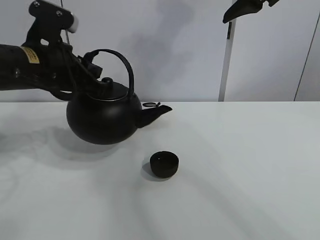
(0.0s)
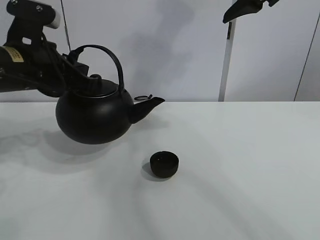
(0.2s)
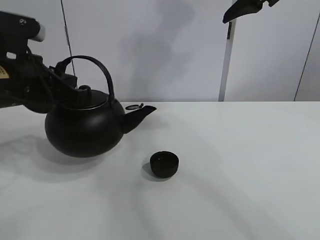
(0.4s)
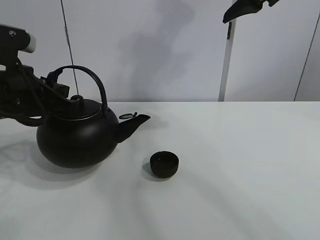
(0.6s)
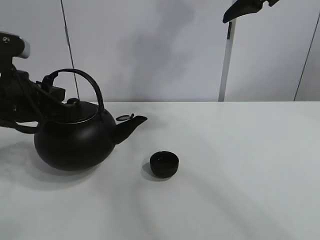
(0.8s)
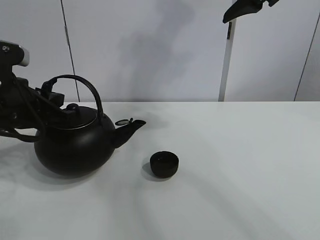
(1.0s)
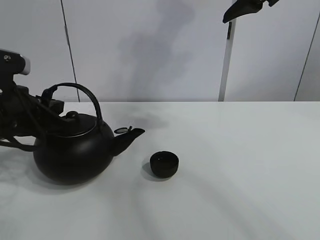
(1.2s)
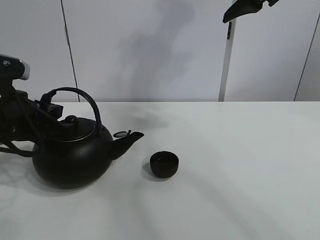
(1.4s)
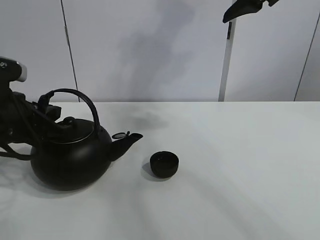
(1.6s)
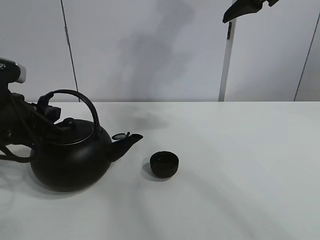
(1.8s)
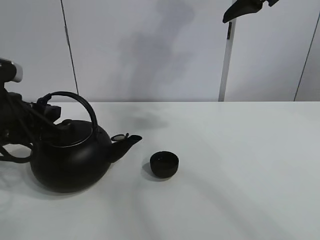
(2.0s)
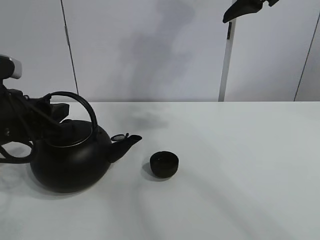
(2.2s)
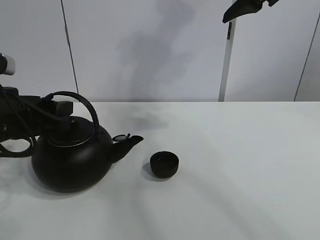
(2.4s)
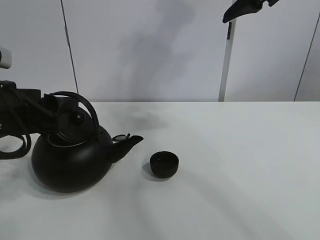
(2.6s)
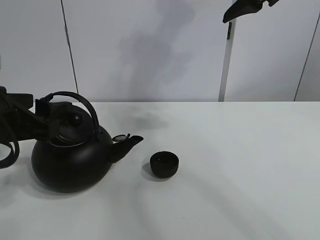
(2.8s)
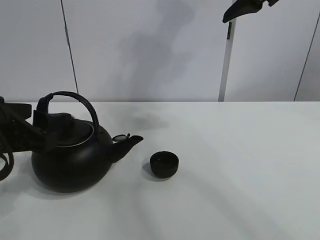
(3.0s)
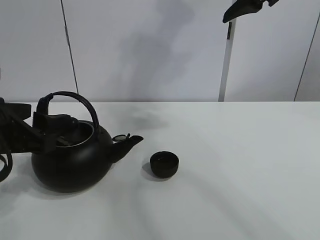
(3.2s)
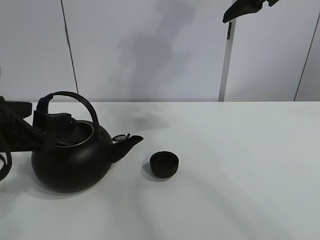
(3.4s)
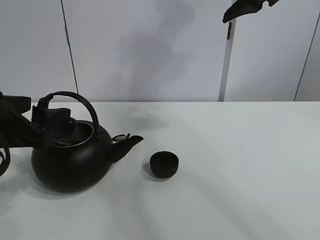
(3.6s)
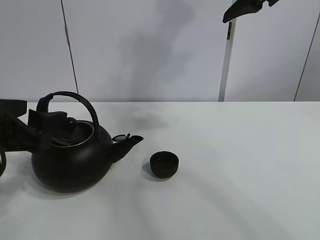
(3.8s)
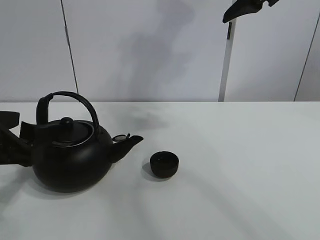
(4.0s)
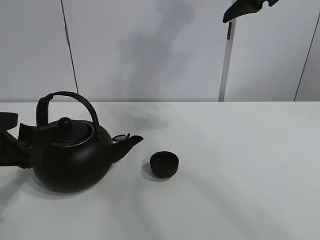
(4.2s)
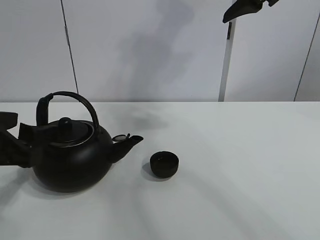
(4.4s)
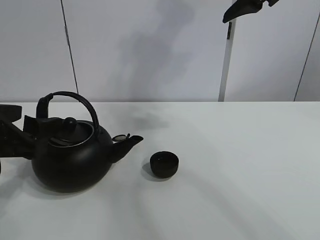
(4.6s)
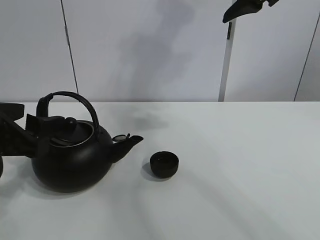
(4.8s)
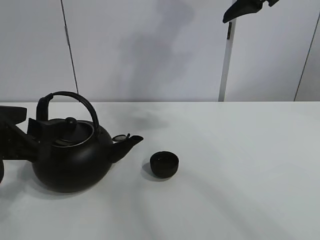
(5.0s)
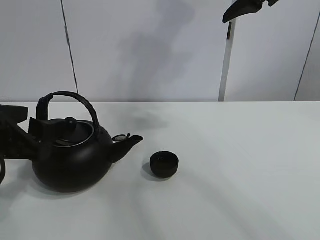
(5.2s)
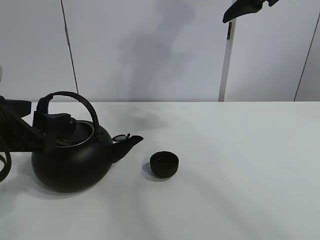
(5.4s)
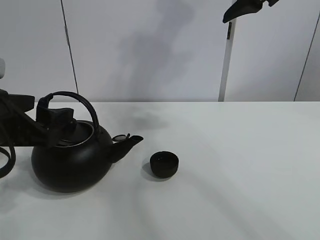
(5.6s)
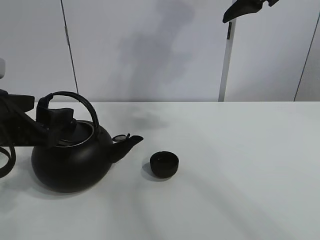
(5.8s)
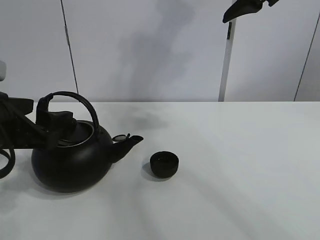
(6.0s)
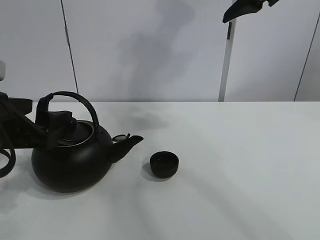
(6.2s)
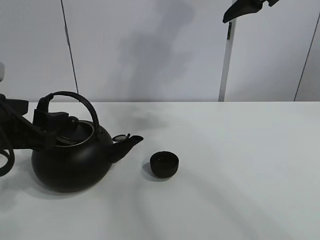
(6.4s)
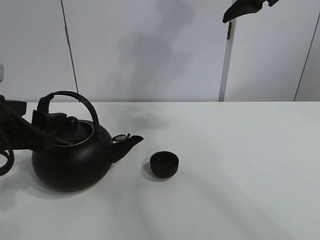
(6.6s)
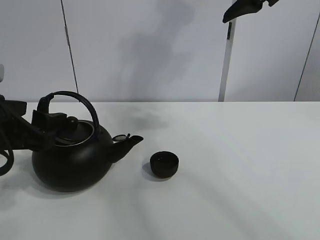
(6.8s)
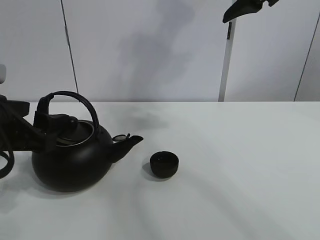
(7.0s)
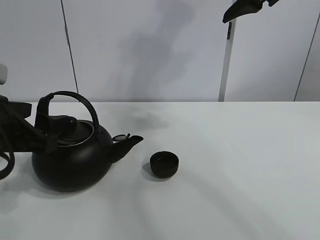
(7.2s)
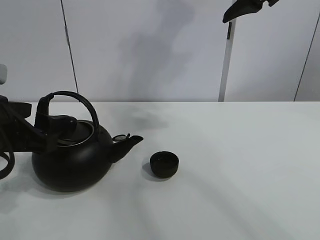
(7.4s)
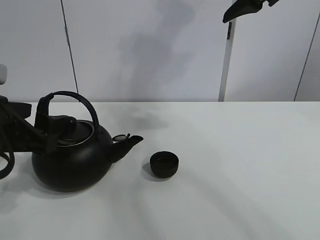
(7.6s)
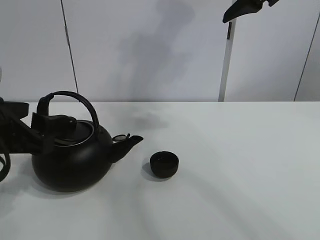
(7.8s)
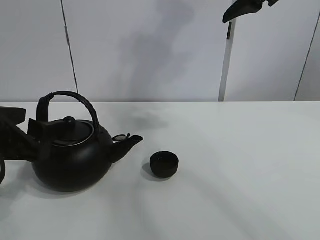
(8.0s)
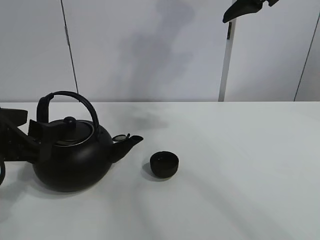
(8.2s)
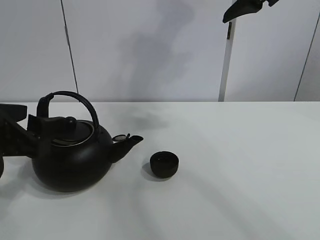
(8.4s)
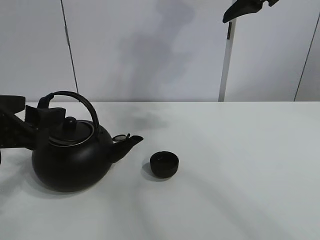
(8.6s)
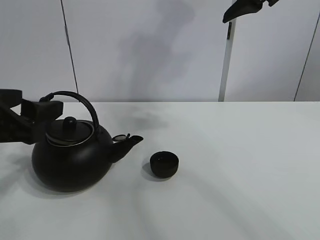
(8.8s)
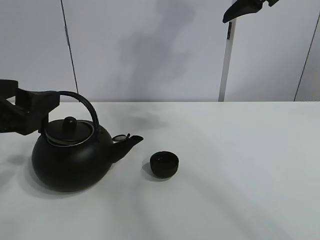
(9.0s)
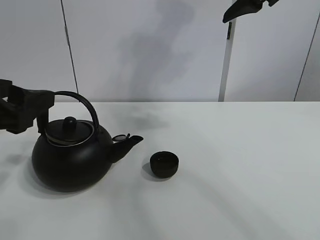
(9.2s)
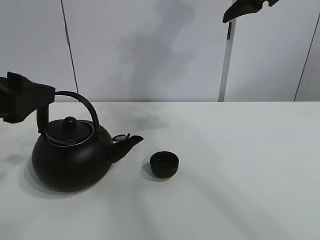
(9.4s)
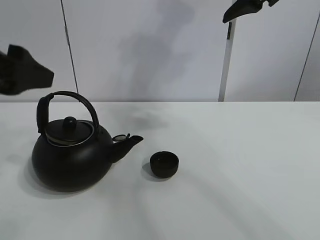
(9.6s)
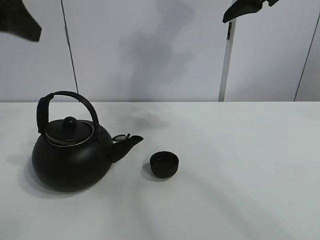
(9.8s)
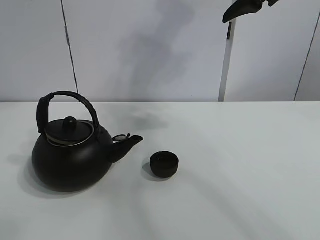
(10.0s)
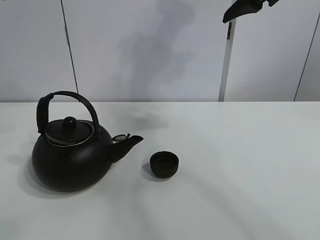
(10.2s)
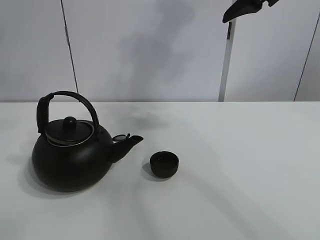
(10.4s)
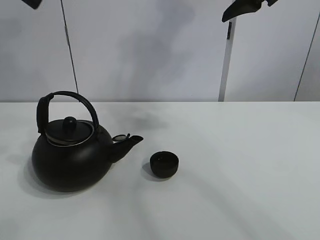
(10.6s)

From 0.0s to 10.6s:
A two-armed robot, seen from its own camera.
Task of the whole recording: pour tea into the teacup.
From 0.0s to 1.6s: The left gripper moves backward and downward, roughly 10 cm.
From 1.6s to 3.0s: The left gripper opens up.
From 3.0s to 6.0s: The grippers stay close to where they were, moving slightly.
From 6.0s to 7.6s: The two grippers keep their place.
From 7.6s to 9.0s: There are only small adjustments of the grippers.
From 9.0s to 10.6s: The left gripper is displaced upward by some 25 cm.

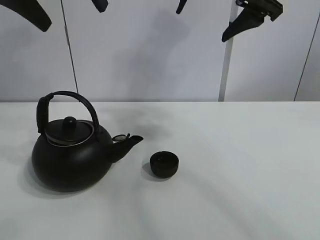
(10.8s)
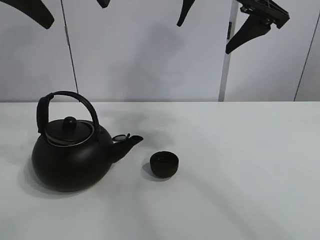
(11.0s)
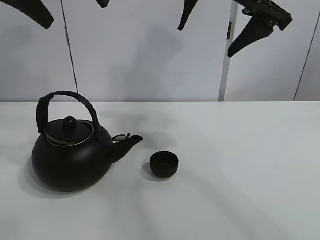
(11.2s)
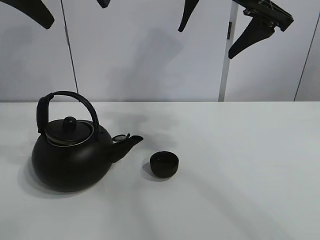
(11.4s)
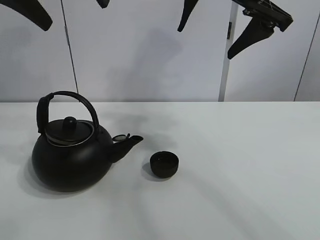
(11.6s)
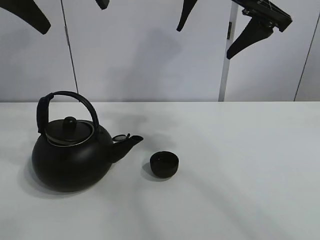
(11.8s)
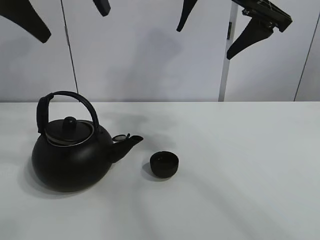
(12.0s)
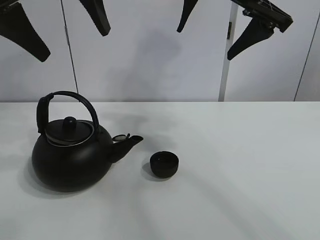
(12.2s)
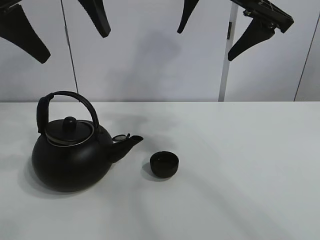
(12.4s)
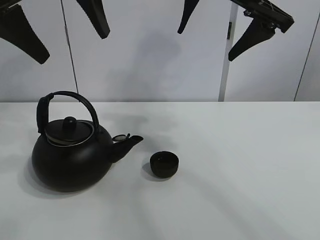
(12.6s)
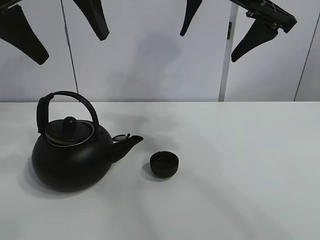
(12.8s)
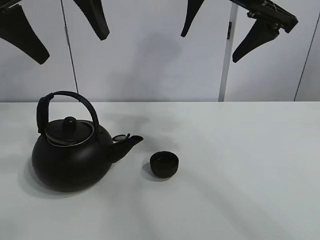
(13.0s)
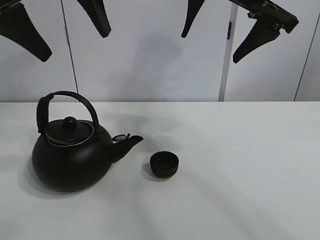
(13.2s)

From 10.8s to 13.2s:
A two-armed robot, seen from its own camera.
Task of the whole recording: pour tea into the teacup.
From 10.8s to 13.2s: There are only small adjustments of the grippers.

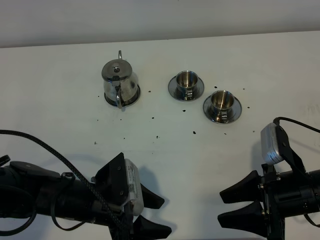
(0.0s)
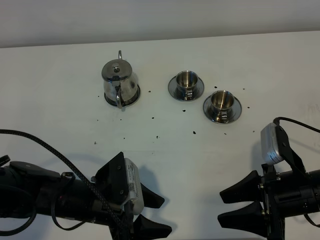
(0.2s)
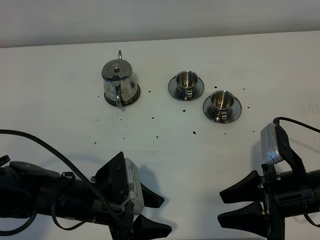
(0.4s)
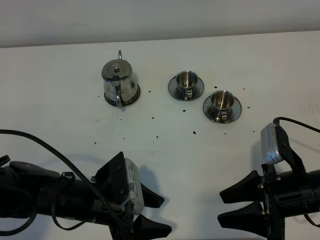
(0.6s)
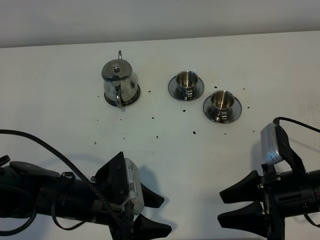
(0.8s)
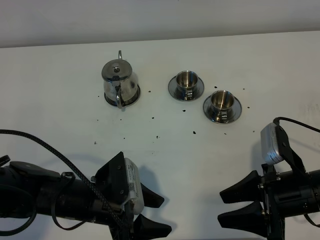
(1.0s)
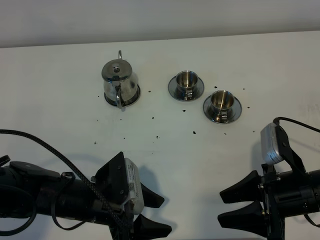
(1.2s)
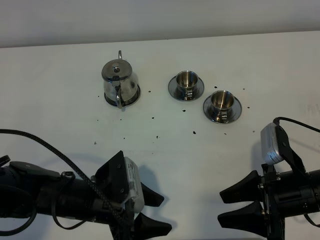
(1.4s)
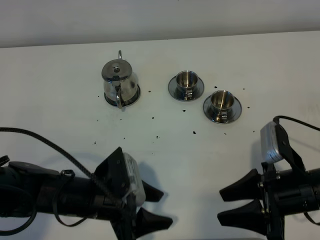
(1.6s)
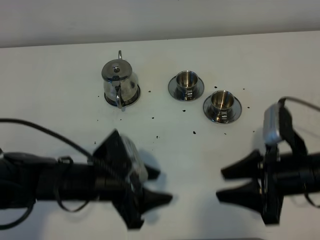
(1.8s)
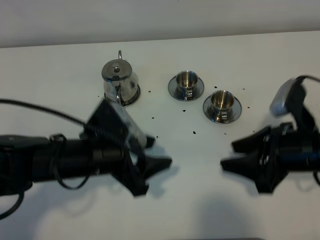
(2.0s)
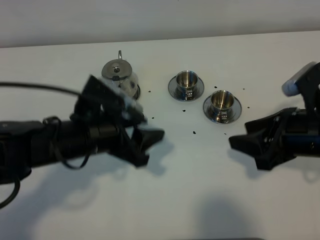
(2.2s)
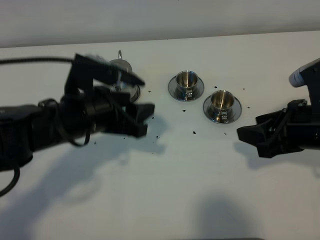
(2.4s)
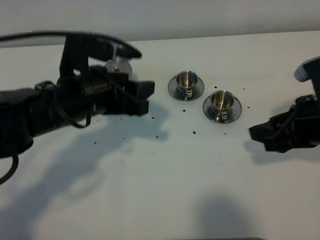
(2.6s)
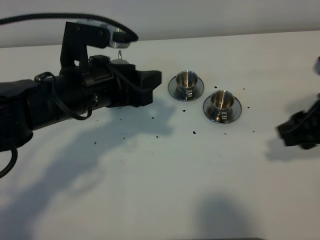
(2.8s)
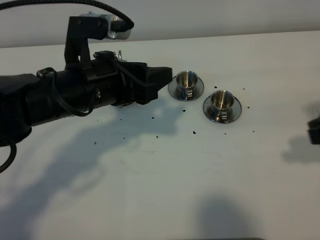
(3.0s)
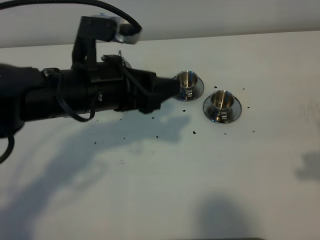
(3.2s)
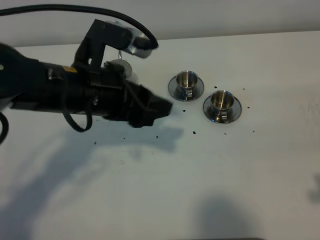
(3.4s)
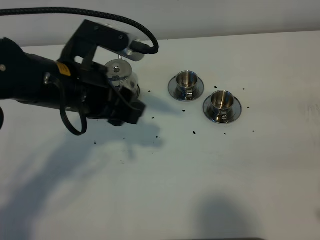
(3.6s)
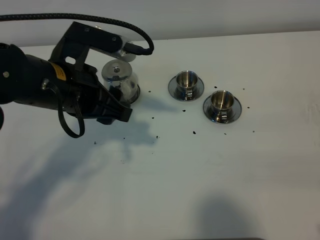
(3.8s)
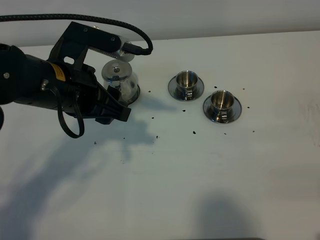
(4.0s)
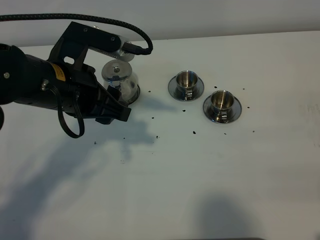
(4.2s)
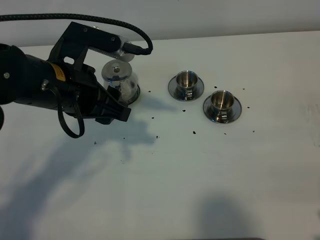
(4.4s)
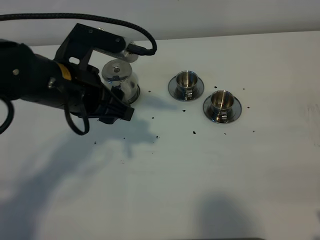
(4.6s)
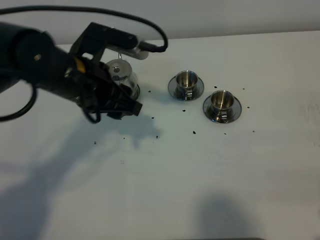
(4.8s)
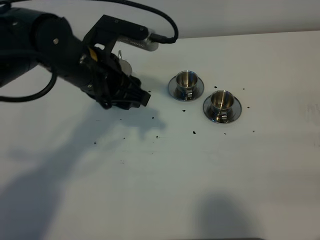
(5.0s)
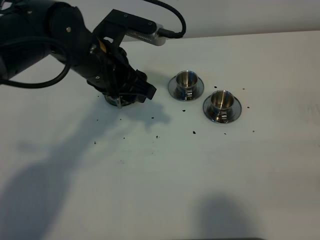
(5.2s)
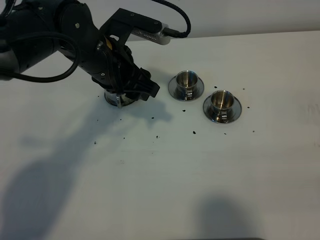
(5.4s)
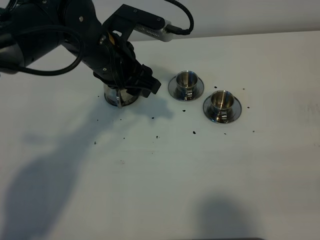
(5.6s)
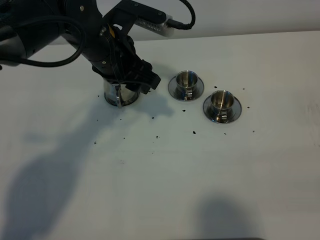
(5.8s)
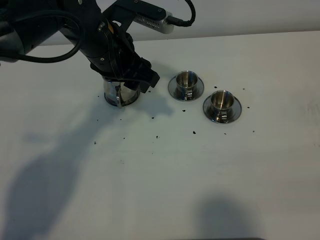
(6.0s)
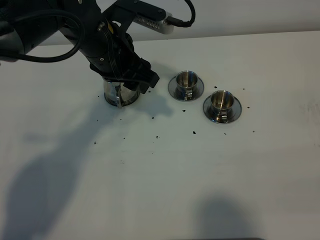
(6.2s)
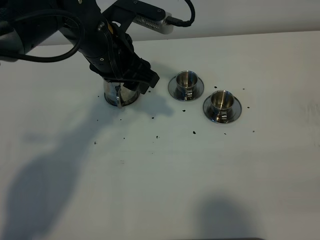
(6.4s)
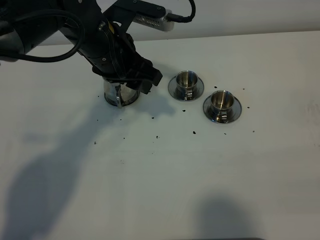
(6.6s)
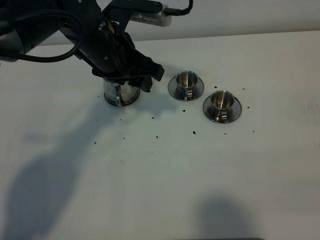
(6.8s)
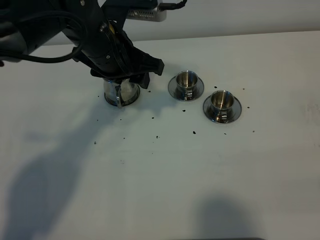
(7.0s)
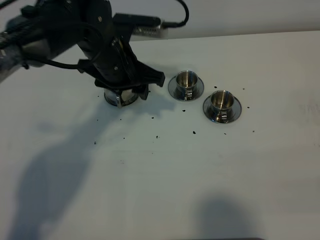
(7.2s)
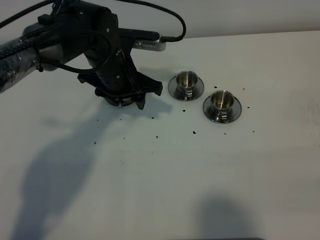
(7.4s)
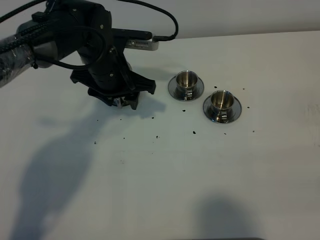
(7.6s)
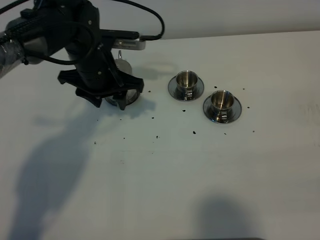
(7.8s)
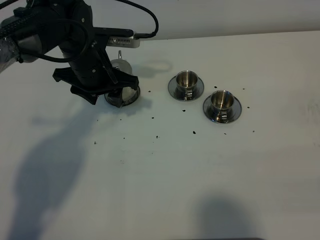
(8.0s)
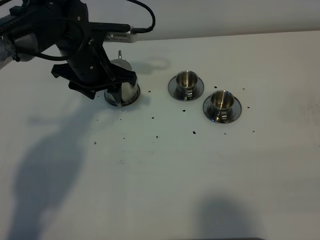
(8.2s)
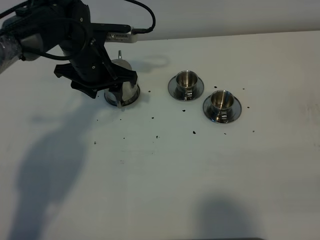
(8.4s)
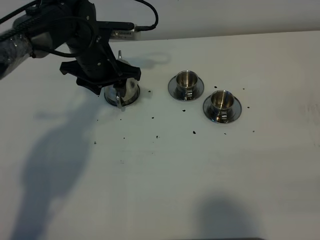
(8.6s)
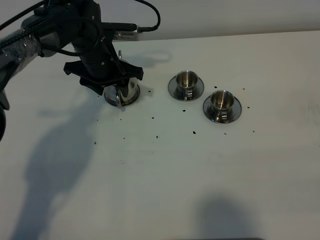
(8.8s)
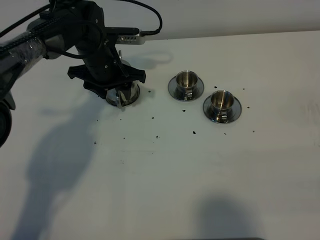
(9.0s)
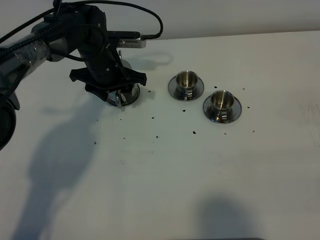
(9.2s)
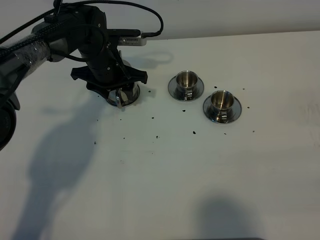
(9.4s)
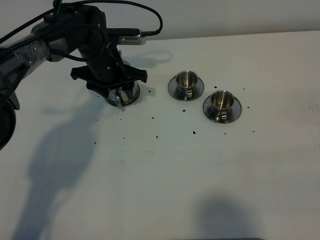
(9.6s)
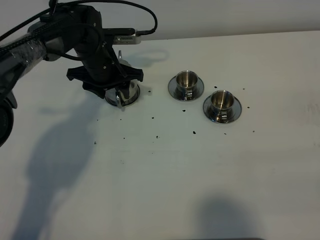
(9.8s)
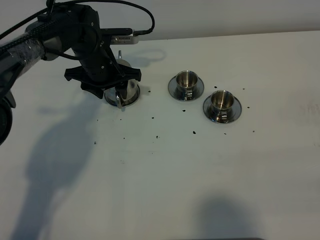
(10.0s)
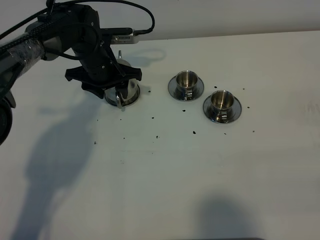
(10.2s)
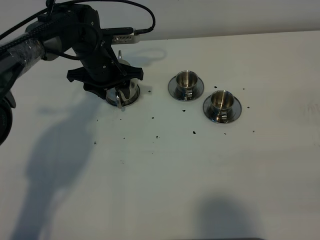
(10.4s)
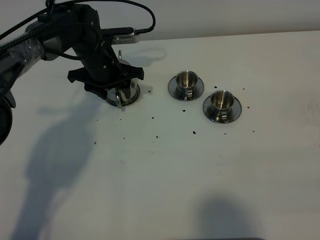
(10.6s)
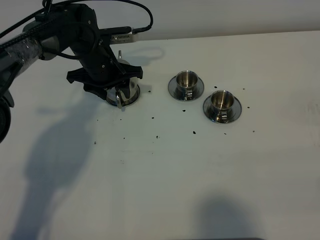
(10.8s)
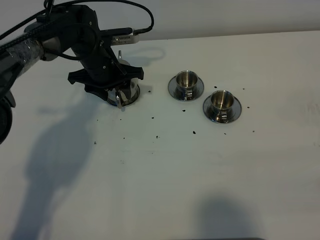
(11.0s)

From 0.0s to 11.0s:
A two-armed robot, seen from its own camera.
Task of the whole recording: grasp the stainless steel teapot and pour the tea into the two stainless steel teacups one by one, put the stainless steel teapot back in its original place.
From 0.0s to 1.6s: Neither gripper changes place.
From 1.6s to 3.2s: The right gripper is displaced upward and to the right by approximately 20 cm. The left gripper heads upward and forward, covering about 15 cm.
From 3.2s to 4.8s: The right gripper travels backward by some 10 cm.
From 4.8s to 6.2s: The left gripper heads forward, covering about 5 cm.
From 6.2s to 7.8s: The left gripper heads downward, covering approximately 5 cm.
From 7.8s to 9.4s: The left gripper travels forward by roughly 5 cm.
From 9.4s to 11.0s: The grippers stay close to where they were, moving slightly.
